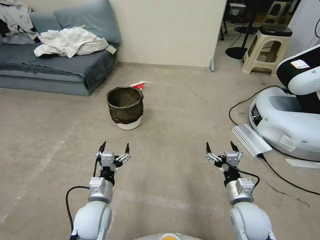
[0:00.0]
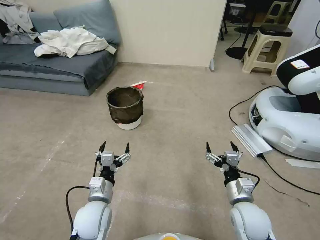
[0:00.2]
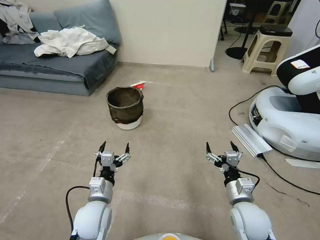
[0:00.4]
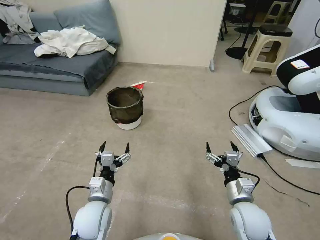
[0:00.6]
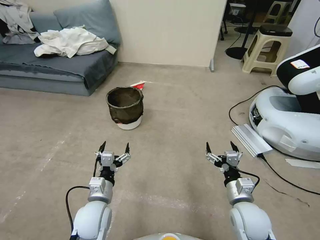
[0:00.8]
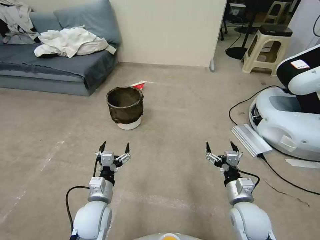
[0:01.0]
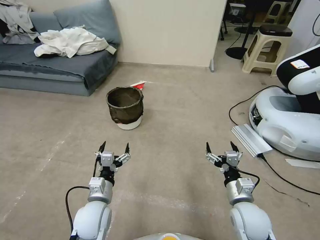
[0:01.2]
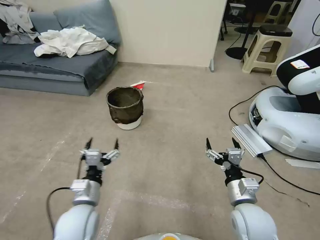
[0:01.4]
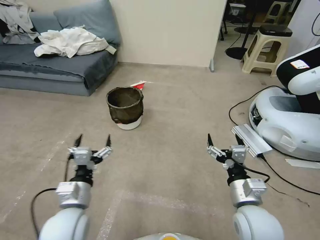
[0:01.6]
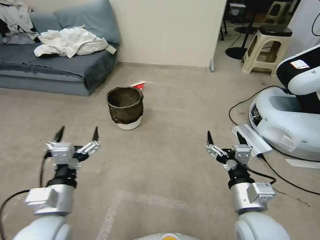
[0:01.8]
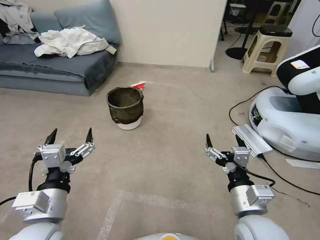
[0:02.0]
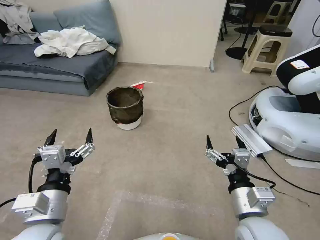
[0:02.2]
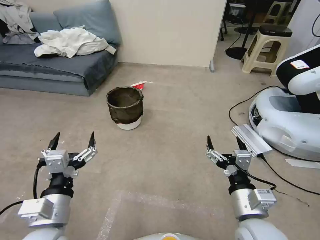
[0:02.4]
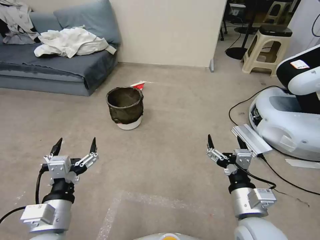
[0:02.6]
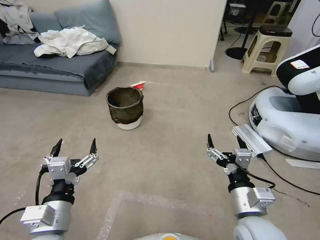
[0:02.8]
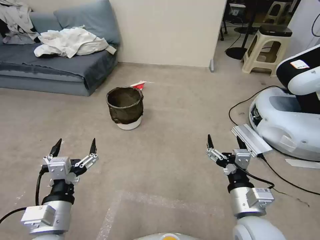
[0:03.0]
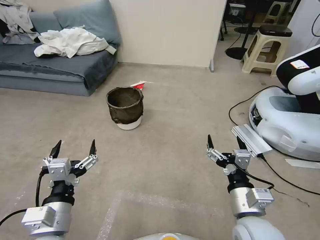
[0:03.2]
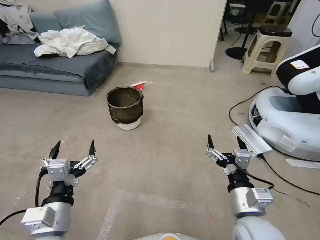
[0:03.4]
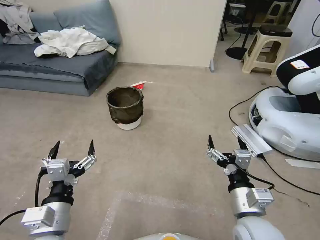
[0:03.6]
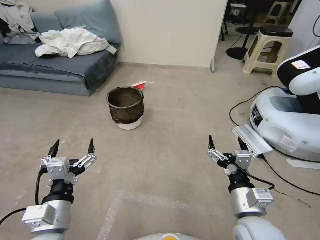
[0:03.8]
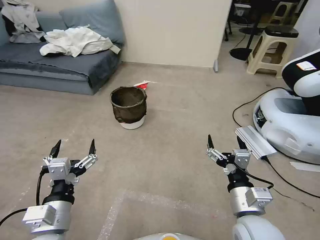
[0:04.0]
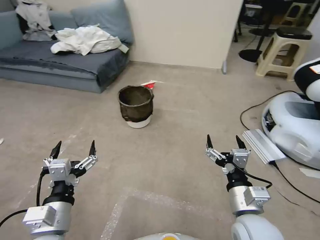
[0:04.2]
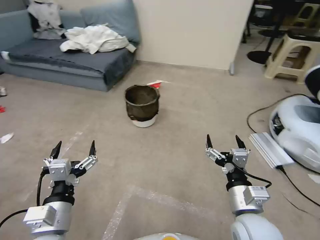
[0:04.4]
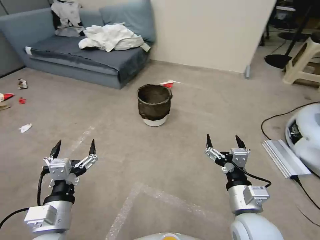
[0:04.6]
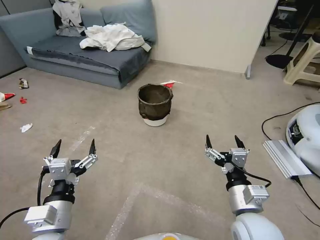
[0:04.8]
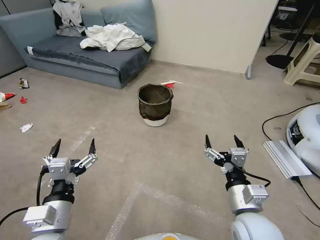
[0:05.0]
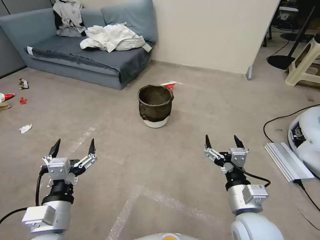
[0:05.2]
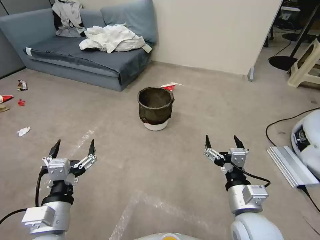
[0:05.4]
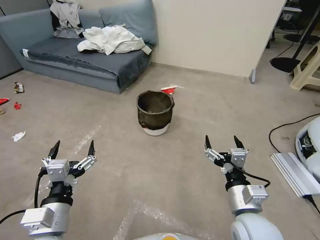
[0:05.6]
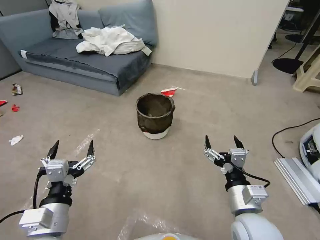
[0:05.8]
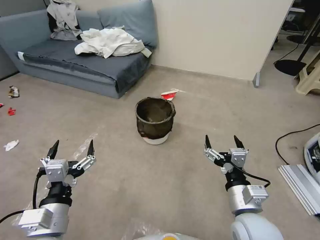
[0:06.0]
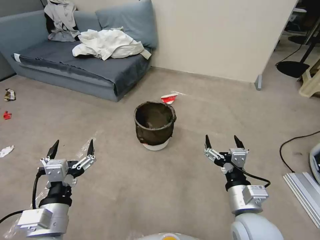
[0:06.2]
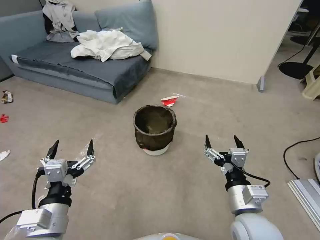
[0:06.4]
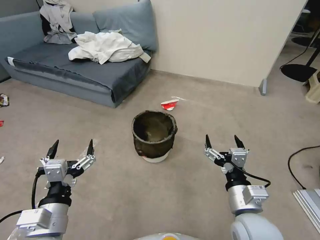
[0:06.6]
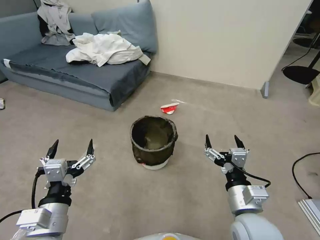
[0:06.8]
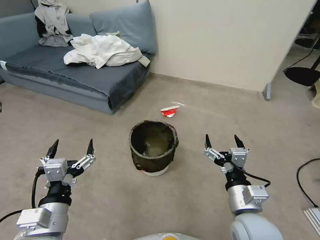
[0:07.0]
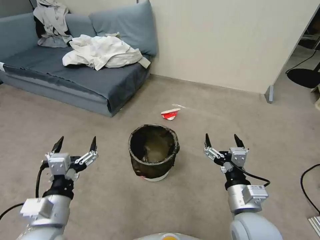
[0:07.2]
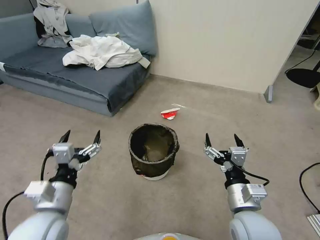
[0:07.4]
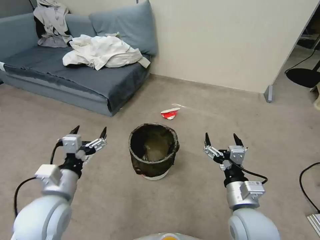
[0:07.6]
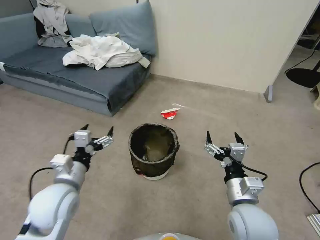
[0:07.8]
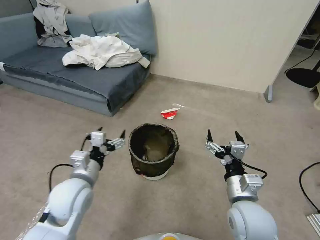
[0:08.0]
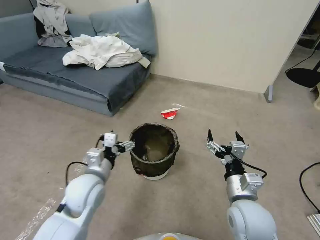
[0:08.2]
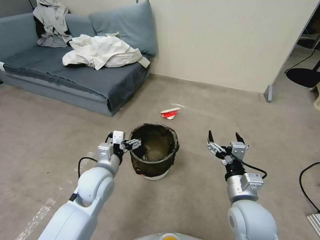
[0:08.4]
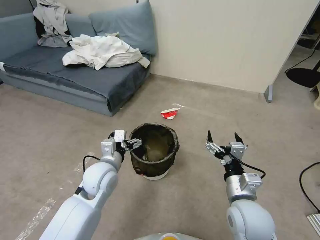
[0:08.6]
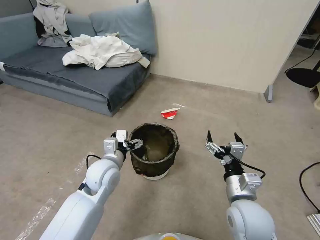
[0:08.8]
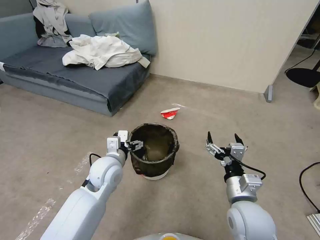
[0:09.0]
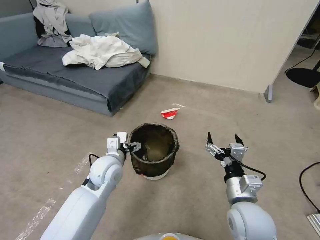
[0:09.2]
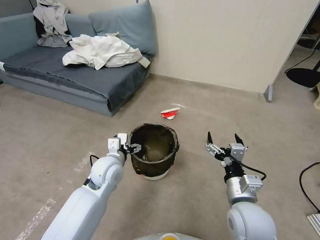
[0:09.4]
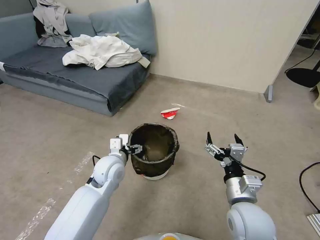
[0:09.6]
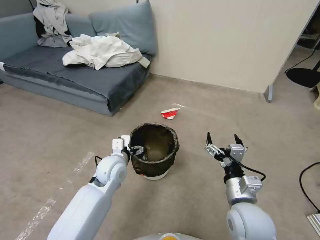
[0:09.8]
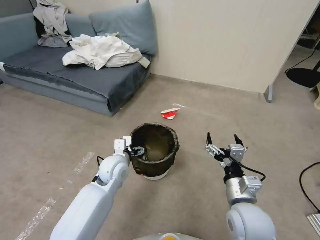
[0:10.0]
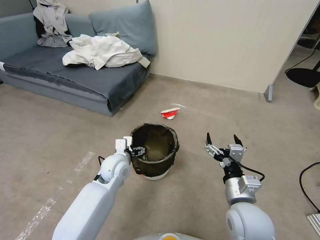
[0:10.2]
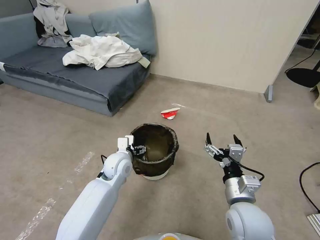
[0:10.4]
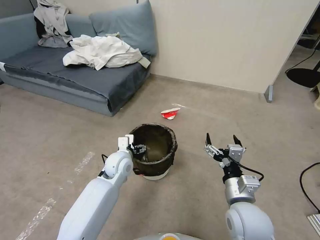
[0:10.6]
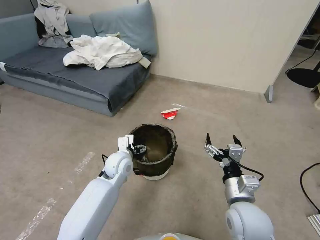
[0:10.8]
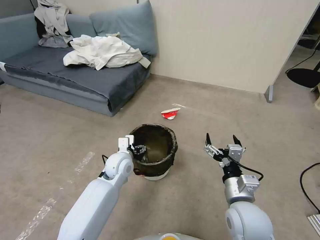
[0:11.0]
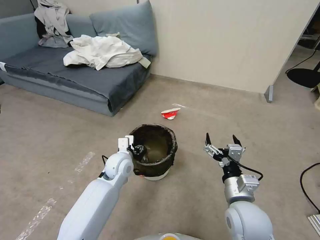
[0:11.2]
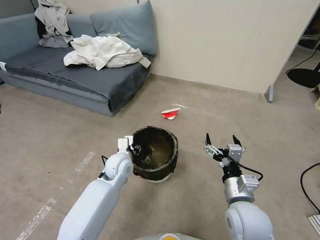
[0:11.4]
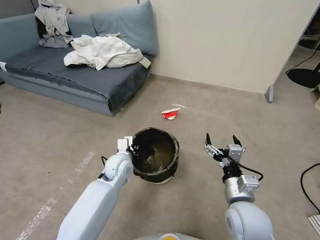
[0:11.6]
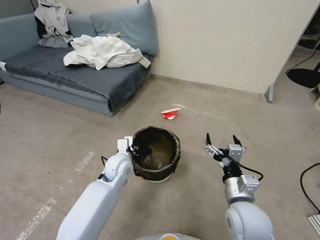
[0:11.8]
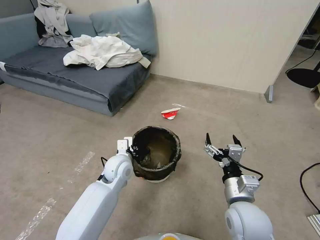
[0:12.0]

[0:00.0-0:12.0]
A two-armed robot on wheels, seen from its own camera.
Task of the whole recording: Pick up the trash can from the floor.
1.6 to 3.0 s: The left gripper is displaced backward by roughly 5 cm.
6.0 to 7.6 s: The left gripper goes some 10 cm forward.
7.6 to 9.0 s: The left gripper travels forward and to the right by about 15 cm.
9.0 to 10.4 s: The left gripper shifts about 5 cm downward.
10.4 to 12.0 s: The left gripper closes up.

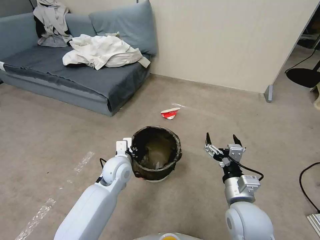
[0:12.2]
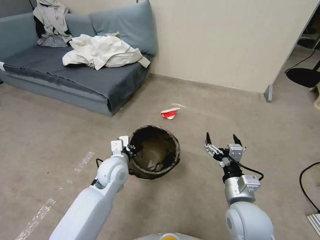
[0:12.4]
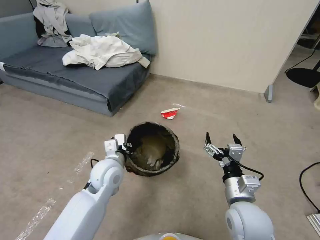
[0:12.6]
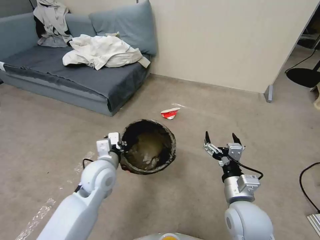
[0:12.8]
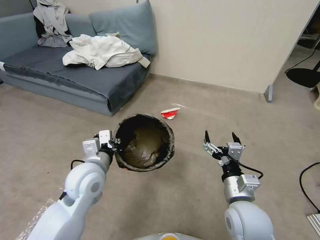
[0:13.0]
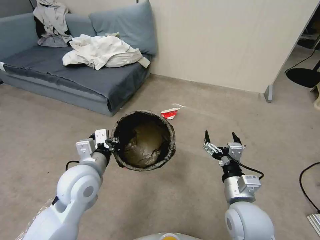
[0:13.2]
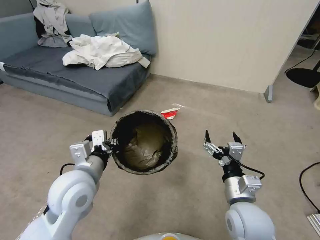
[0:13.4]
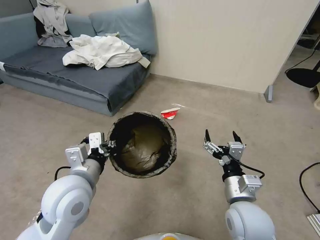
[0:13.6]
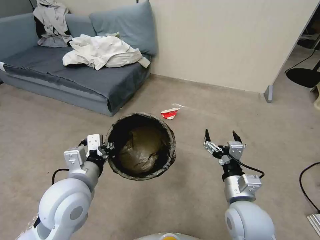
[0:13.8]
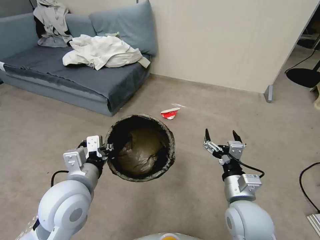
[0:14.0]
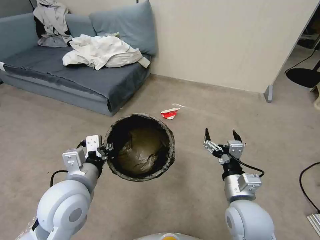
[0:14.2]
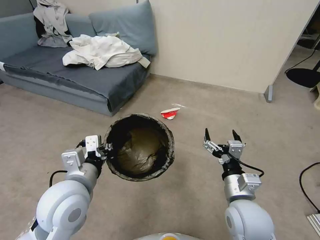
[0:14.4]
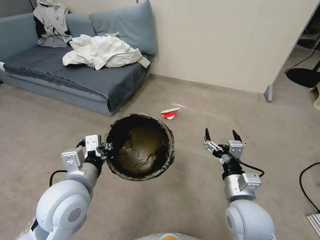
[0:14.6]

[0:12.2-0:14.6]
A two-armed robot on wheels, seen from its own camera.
Task of the whole recording: Pick up the trash can from the floor.
12.2 to 13.4 s: The left gripper goes roughly 15 cm upward, backward and to the left.
13.4 to 14.6 s: The grippers make only small movements.

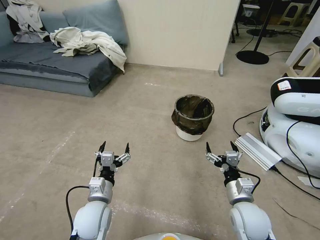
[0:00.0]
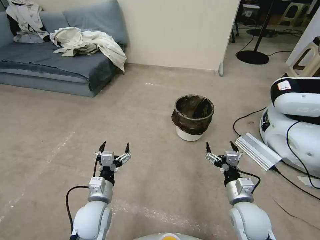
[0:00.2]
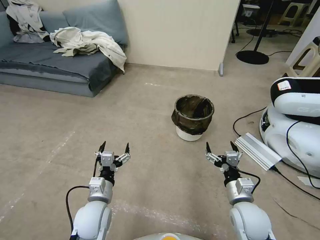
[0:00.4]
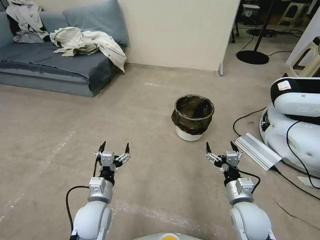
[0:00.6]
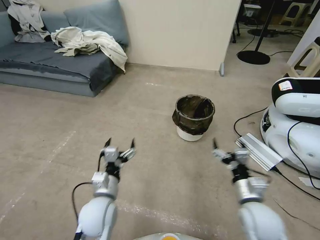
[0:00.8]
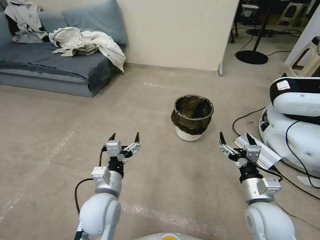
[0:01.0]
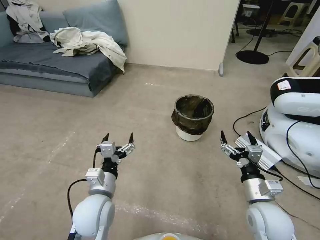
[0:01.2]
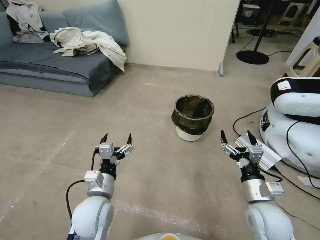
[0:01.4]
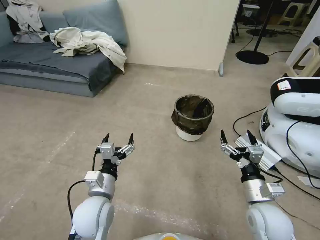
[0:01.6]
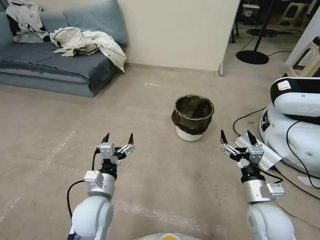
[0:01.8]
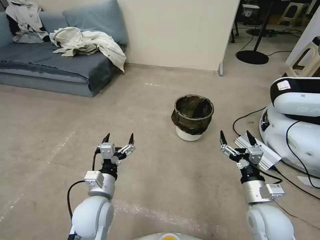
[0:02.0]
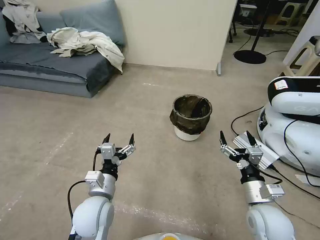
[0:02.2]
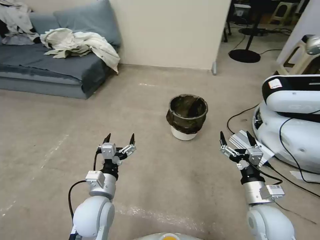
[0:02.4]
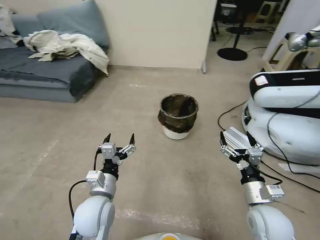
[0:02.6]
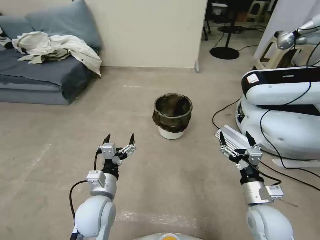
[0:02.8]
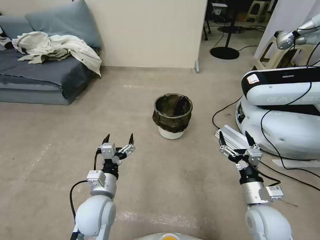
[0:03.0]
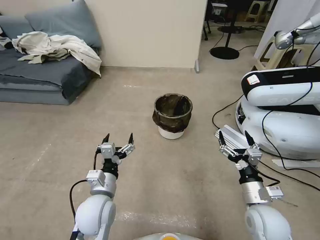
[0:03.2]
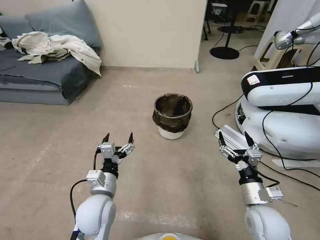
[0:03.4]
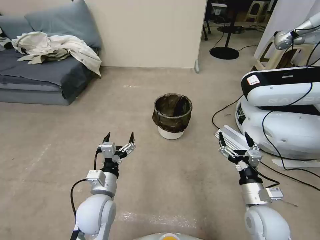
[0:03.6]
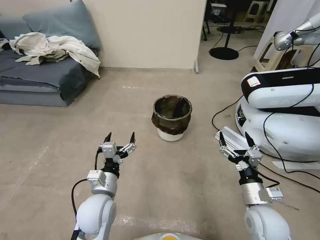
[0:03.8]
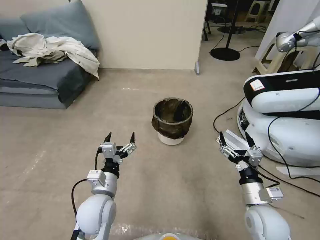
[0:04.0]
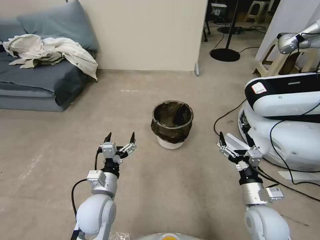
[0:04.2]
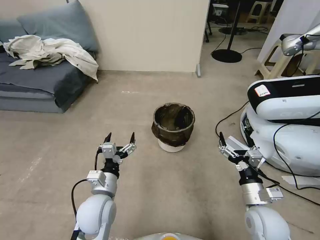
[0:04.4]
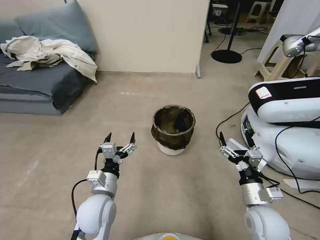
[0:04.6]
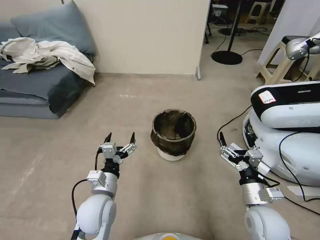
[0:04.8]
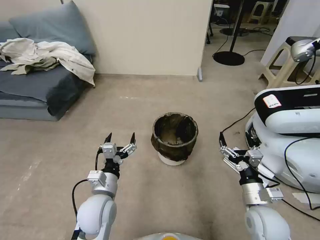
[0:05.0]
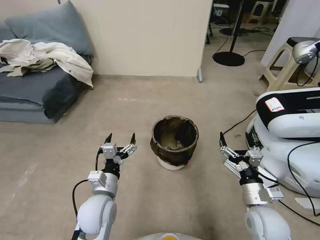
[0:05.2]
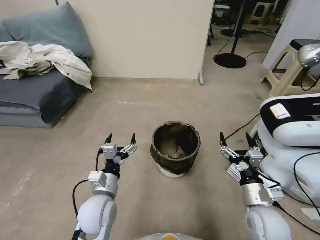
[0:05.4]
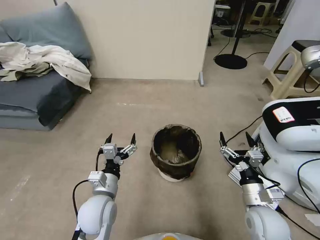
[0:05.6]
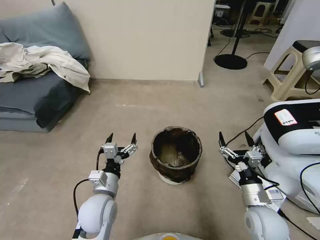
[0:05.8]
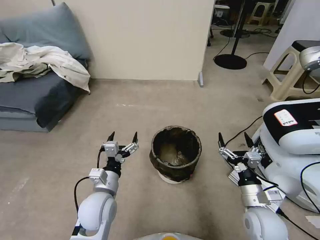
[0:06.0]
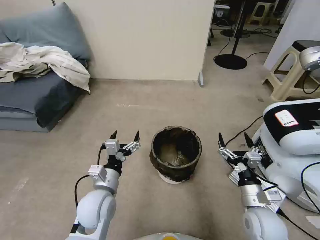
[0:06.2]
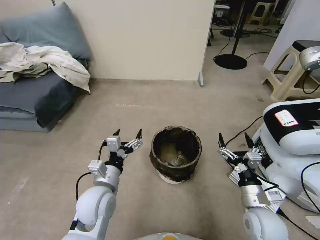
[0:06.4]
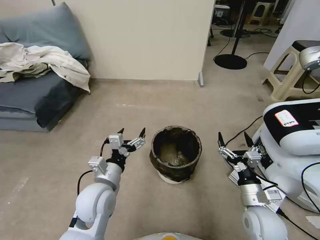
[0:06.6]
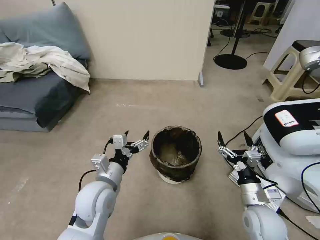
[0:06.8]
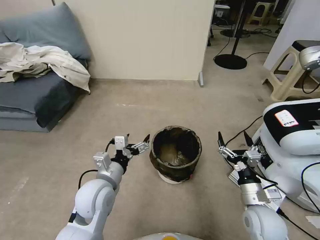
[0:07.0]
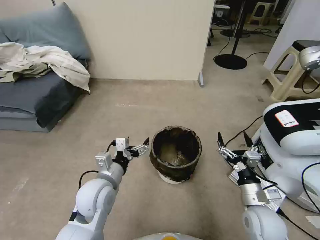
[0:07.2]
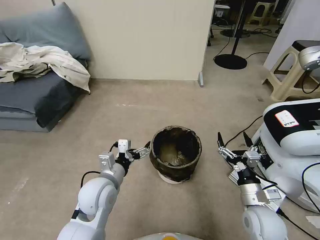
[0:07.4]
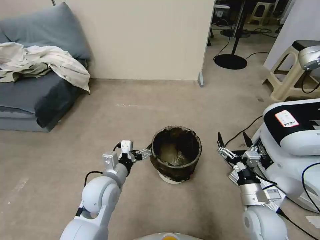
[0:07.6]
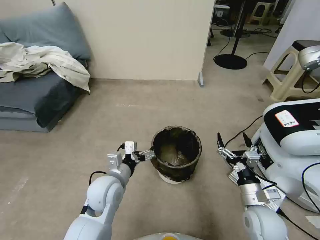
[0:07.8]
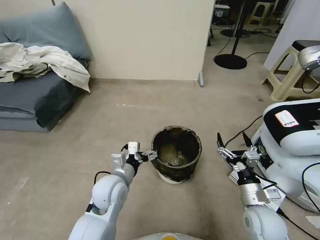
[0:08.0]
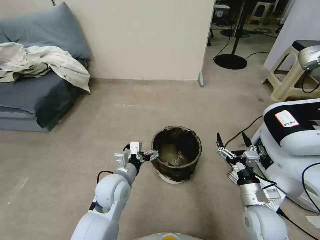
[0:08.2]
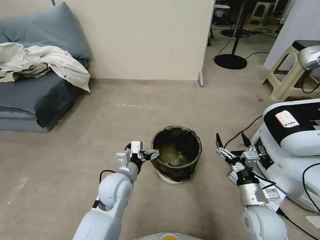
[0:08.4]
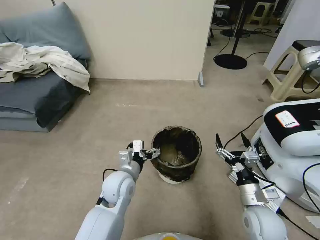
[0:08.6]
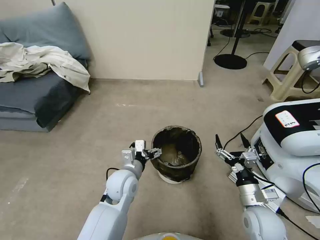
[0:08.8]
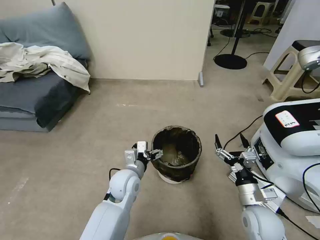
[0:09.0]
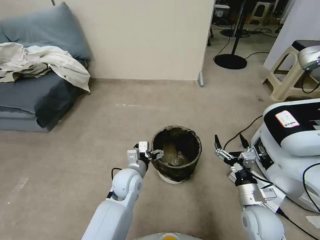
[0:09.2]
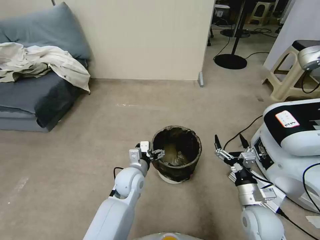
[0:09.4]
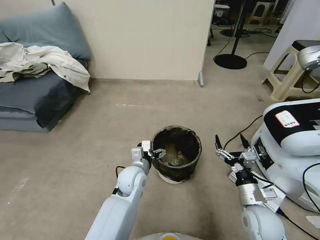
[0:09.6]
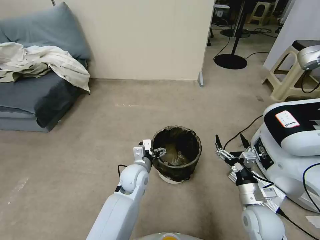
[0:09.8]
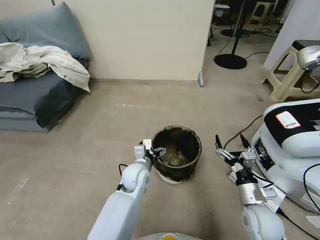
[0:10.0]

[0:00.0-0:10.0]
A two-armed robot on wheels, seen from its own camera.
Task of the whole recording: Pick up the trash can from the floor.
5.8 to 7.2 s: The left gripper moves approximately 5 cm.
7.2 to 8.6 s: The left gripper changes place by roughly 10 cm.
8.6 to 10.0 s: The left gripper shifts by roughly 5 cm.
